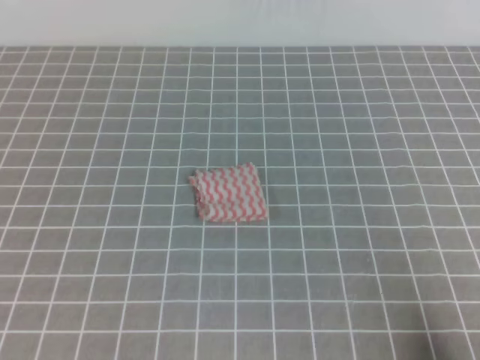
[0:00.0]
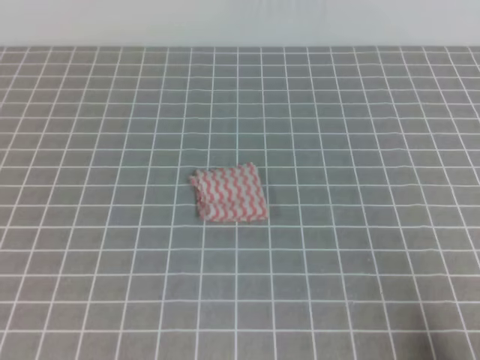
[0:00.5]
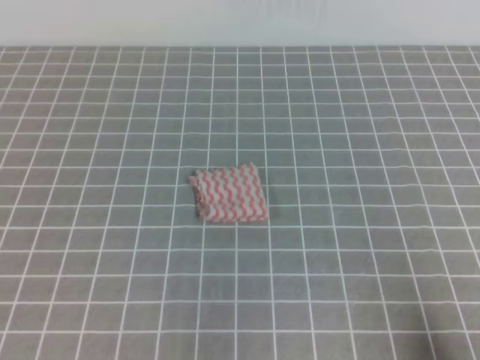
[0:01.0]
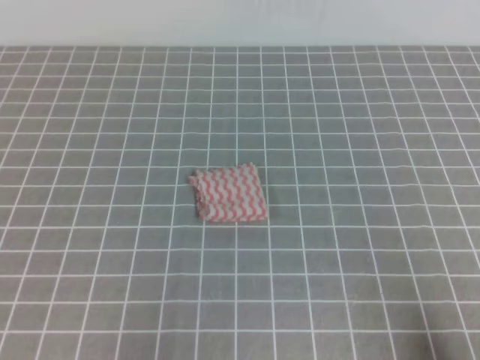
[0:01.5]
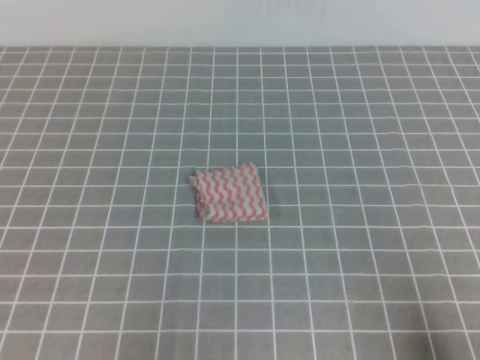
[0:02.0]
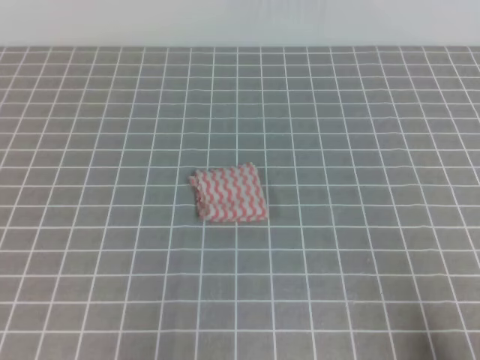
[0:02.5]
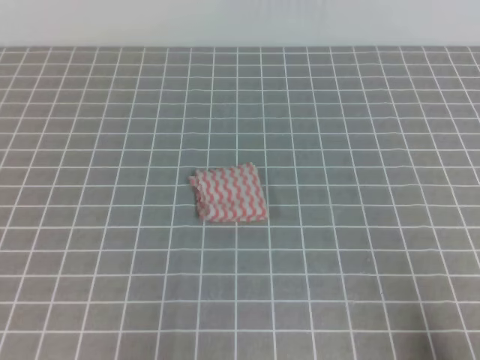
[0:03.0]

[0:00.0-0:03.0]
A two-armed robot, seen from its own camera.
0:01.5 to 0:03.0: The two grippers keep their place.
